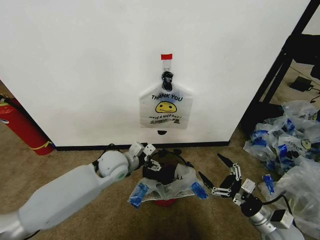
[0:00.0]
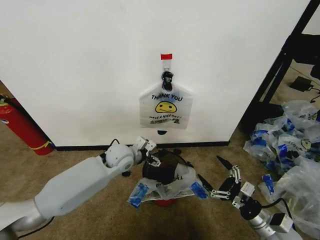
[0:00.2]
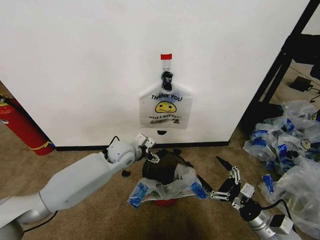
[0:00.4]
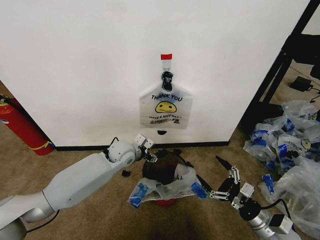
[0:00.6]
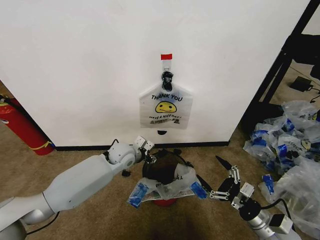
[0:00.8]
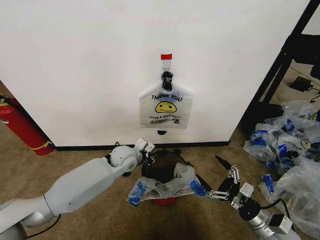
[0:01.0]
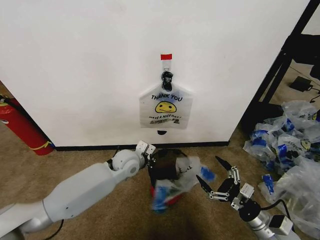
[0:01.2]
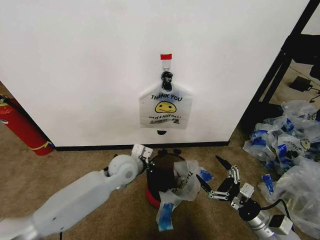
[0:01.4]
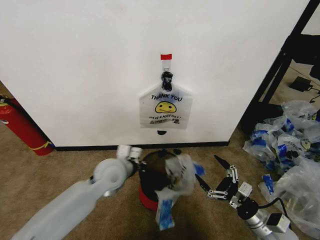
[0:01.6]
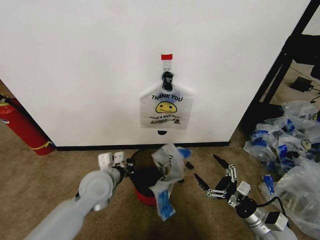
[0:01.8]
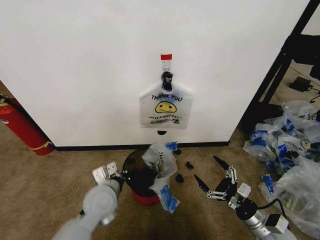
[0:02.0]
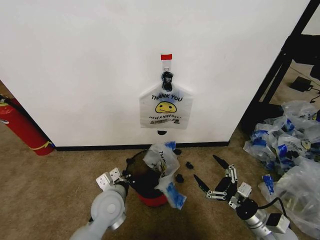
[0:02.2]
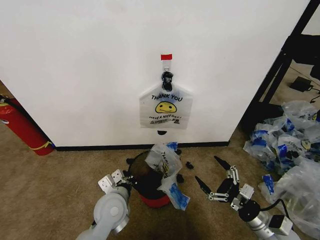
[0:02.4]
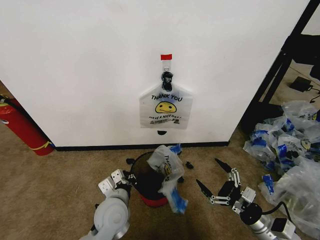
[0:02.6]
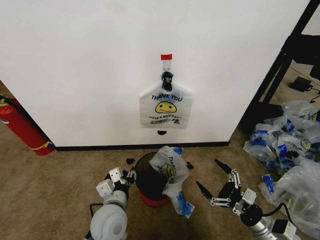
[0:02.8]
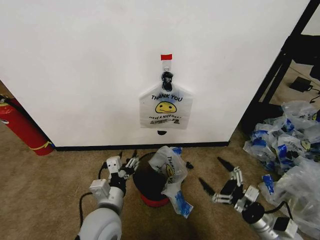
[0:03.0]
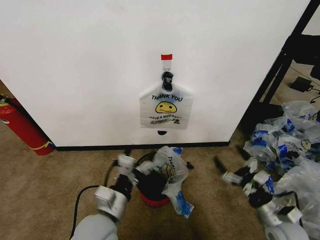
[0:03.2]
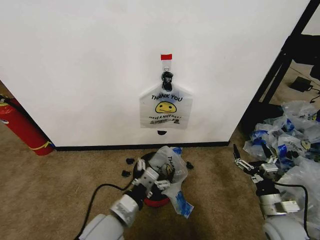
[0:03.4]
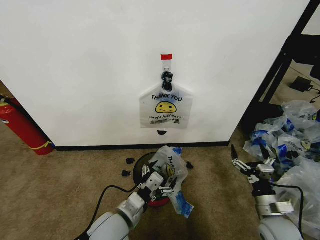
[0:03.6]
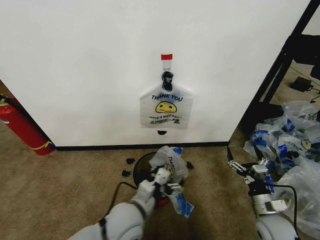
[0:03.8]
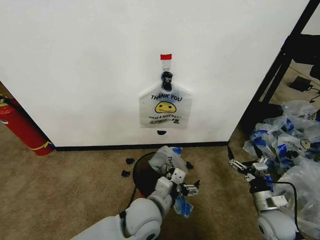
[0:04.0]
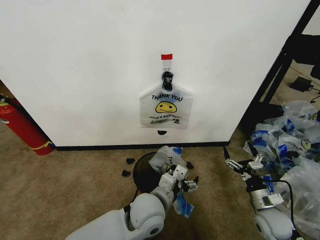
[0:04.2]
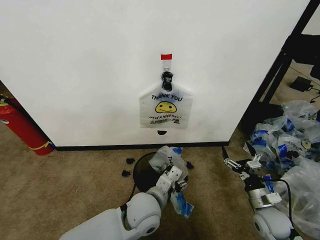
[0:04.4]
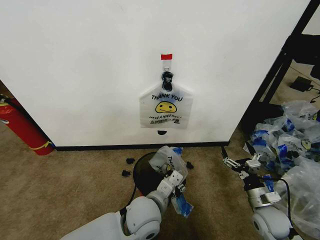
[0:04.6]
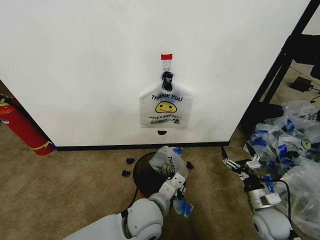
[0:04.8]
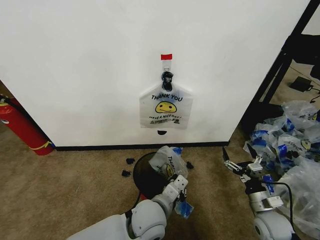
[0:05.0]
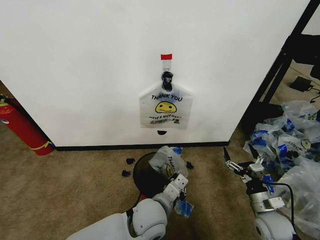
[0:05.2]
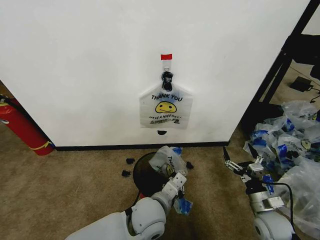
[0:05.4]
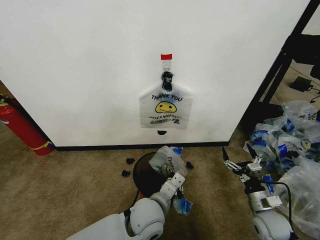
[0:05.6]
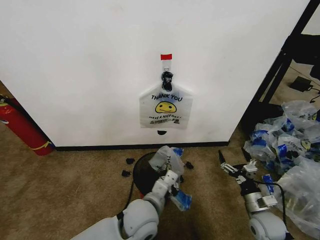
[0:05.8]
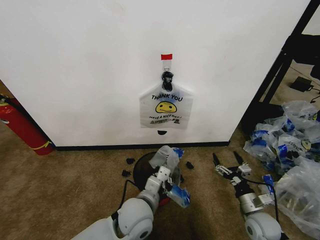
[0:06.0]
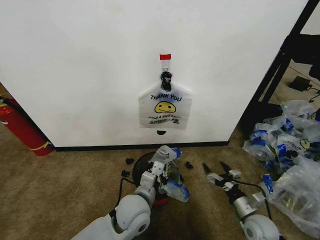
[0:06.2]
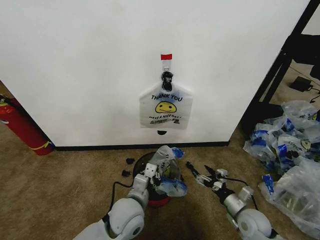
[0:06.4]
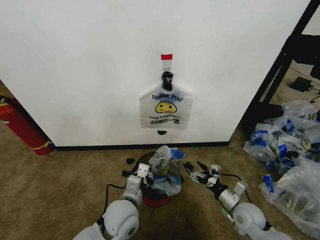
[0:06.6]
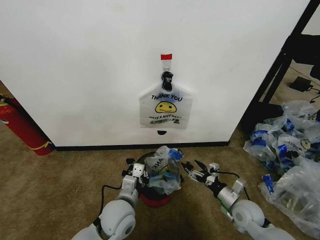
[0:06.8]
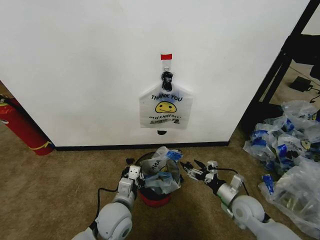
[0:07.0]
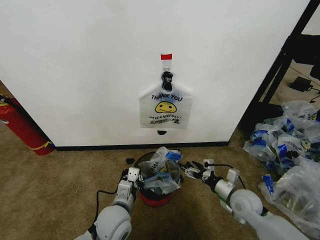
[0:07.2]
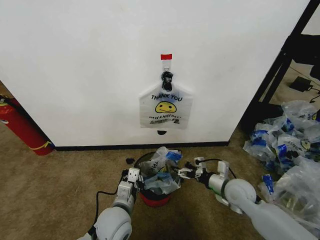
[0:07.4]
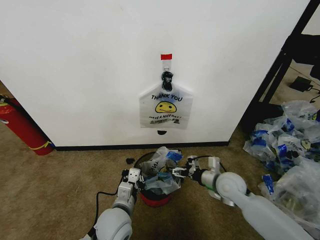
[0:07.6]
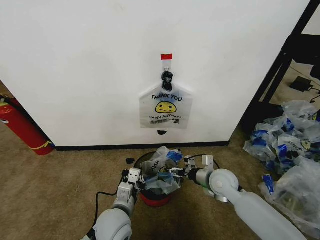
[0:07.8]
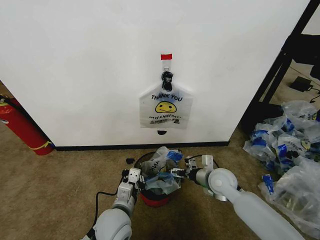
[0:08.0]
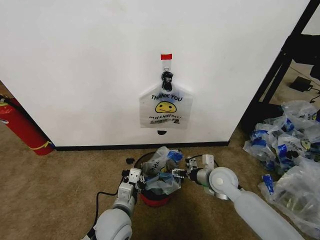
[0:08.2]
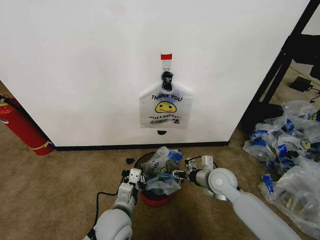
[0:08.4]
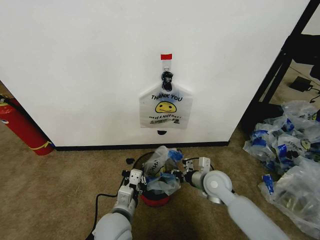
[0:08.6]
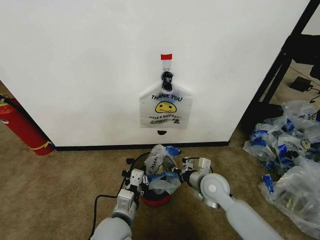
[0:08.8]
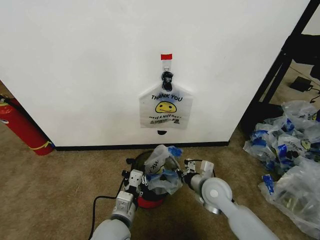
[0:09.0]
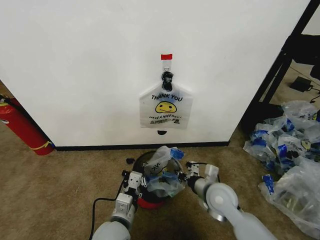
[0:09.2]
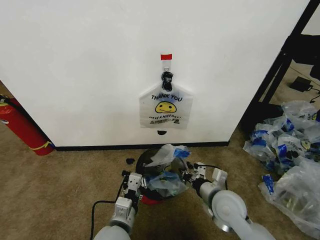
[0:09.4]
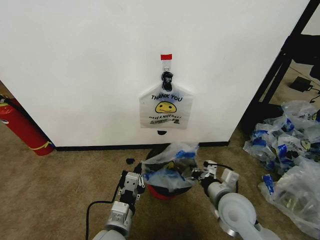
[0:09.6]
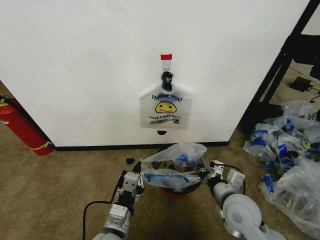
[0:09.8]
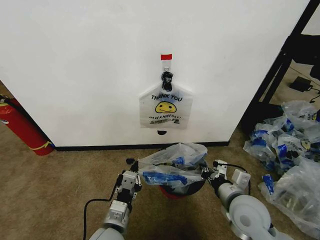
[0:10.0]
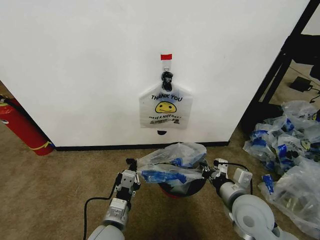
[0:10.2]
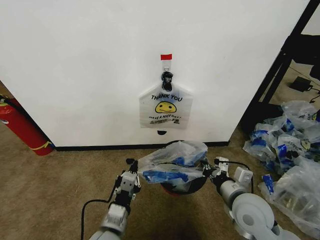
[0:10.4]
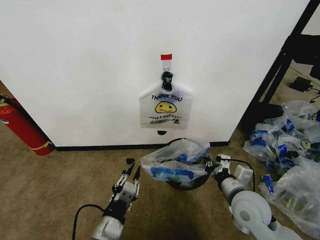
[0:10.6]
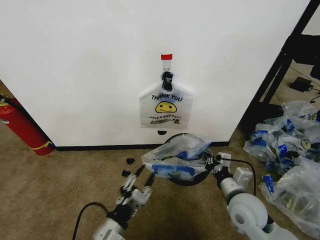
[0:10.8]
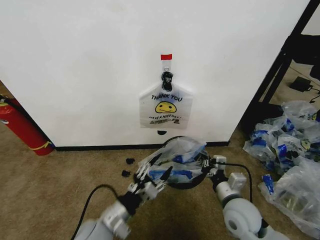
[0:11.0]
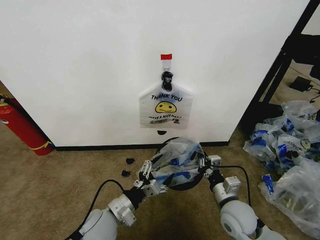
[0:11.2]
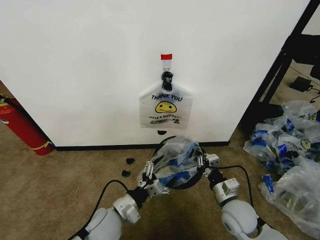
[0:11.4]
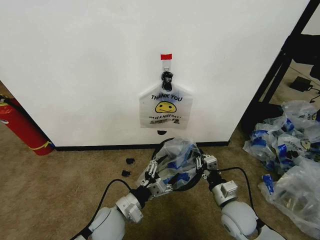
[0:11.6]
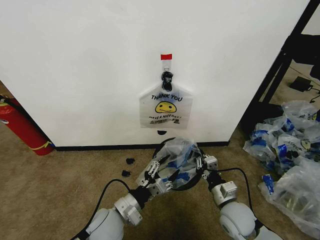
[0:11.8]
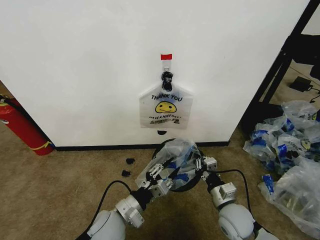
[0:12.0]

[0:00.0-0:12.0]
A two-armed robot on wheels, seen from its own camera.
Task of the whole recording: Pick up the garbage bag from the wall and place it over the trash bin.
0.0 to 1.6 s: The left gripper reaches approximately 5 cm forward, then returns, and closes its fingers.
1.6 to 3.0 s: The left gripper shifts about 15 cm backward, and opens.
3.0 to 4.4 s: The right gripper goes some 5 cm forward, while the left gripper travels to the right by about 10 cm.
4.4 to 6.0 s: The left gripper closes its fingers.
6.0 to 7.6 s: The right gripper shifts roughly 15 cm forward, to the left and upward. Meanwhile the left gripper goes some 5 cm to the left.
7.6 to 9.0 s: The right gripper moves to the left, roughly 5 cm, and closes its fingers.
9.0 to 10.4 s: The right gripper shifts about 10 cm backward, upward and to the right.
10.4 to 12.0 s: The right gripper shifts about 10 cm downward. Meanwhile the left gripper is displaced forward by about 5 cm, and opens its fingers.

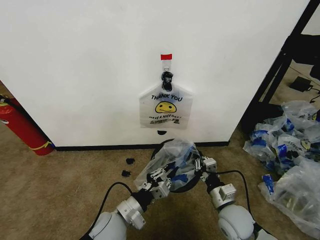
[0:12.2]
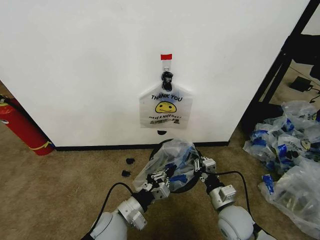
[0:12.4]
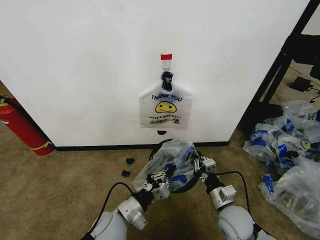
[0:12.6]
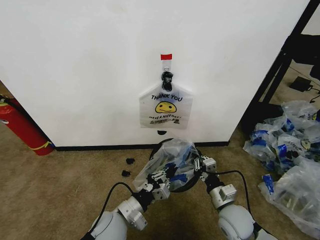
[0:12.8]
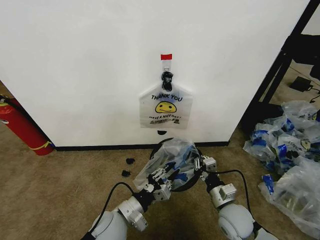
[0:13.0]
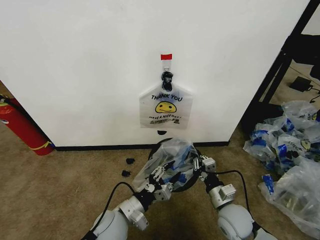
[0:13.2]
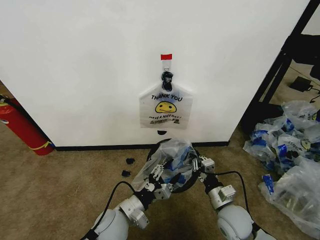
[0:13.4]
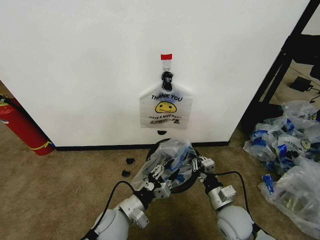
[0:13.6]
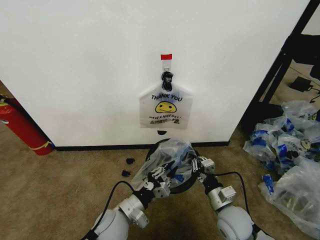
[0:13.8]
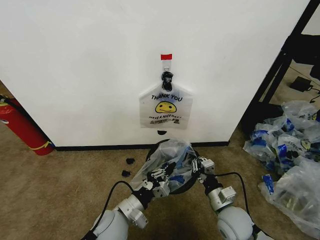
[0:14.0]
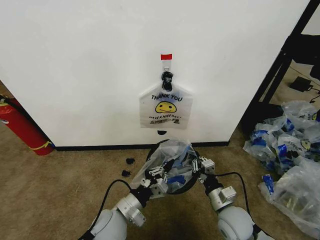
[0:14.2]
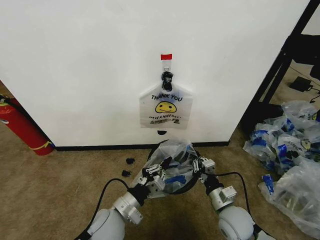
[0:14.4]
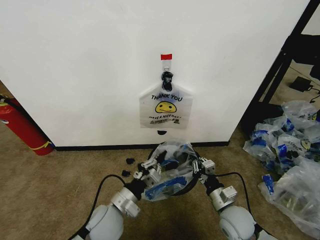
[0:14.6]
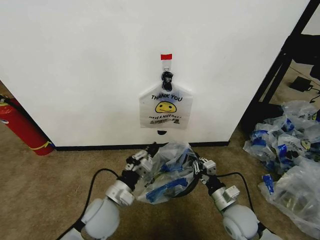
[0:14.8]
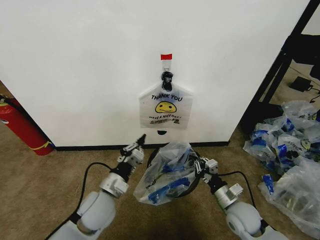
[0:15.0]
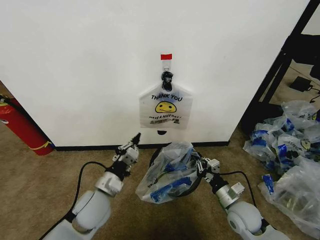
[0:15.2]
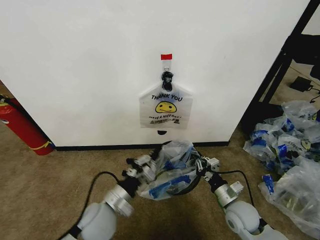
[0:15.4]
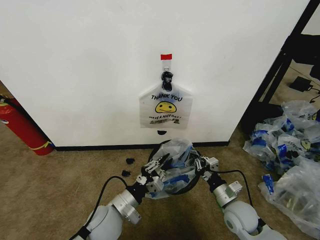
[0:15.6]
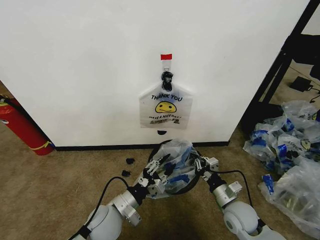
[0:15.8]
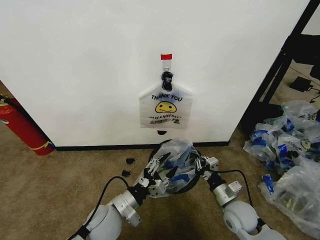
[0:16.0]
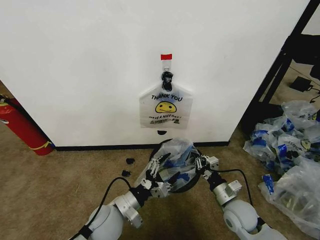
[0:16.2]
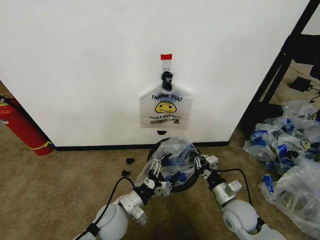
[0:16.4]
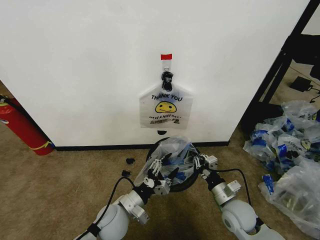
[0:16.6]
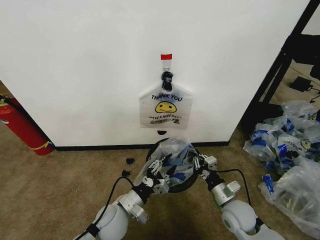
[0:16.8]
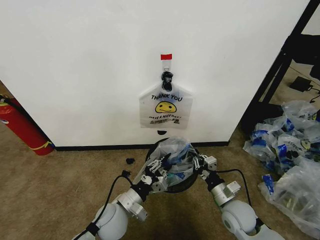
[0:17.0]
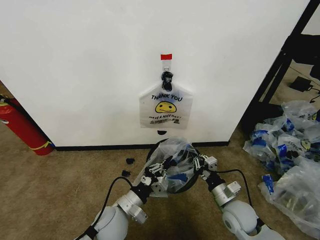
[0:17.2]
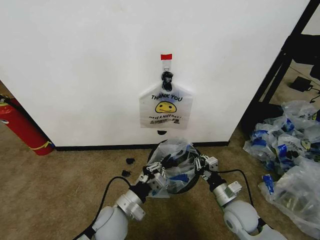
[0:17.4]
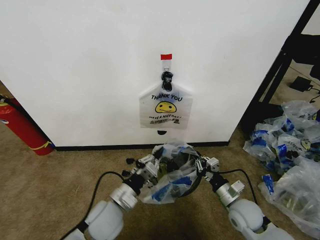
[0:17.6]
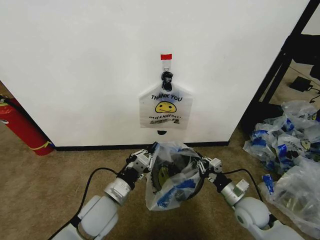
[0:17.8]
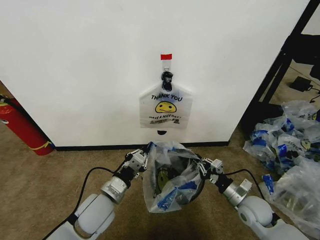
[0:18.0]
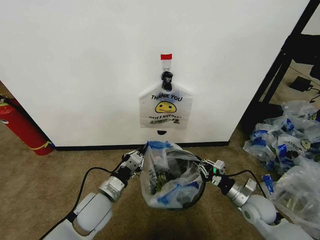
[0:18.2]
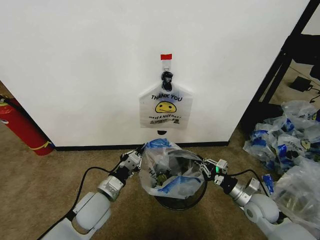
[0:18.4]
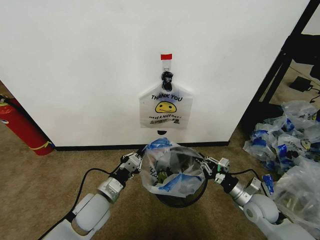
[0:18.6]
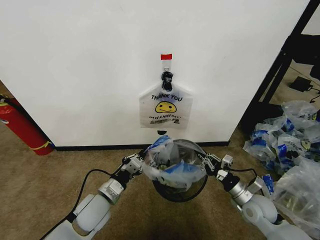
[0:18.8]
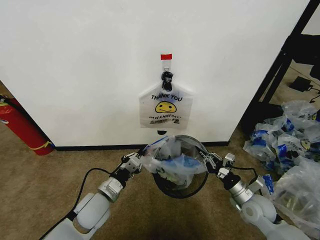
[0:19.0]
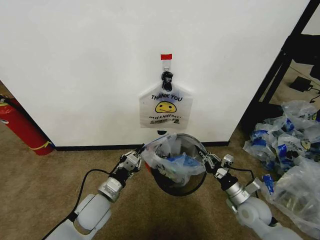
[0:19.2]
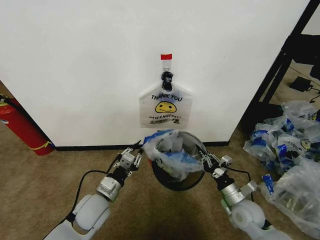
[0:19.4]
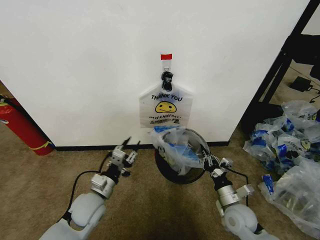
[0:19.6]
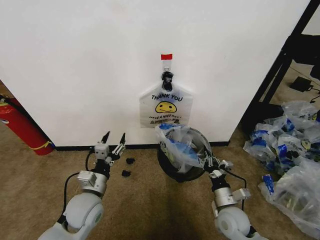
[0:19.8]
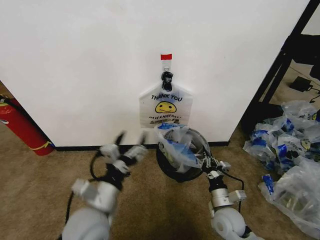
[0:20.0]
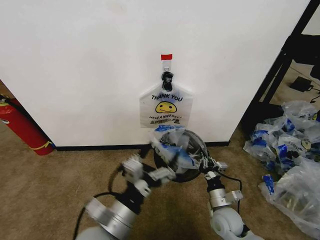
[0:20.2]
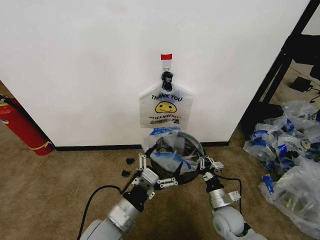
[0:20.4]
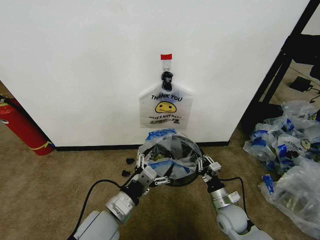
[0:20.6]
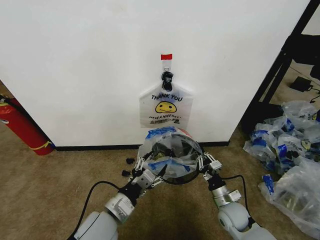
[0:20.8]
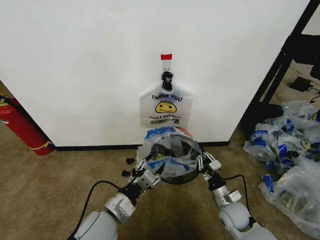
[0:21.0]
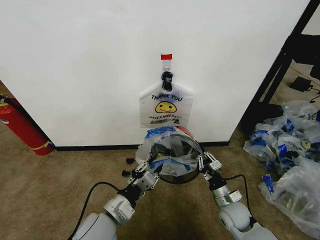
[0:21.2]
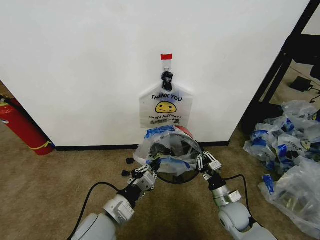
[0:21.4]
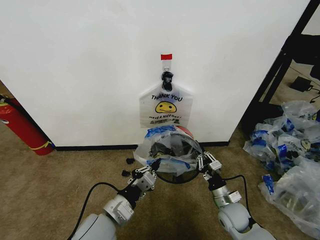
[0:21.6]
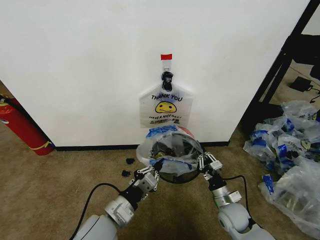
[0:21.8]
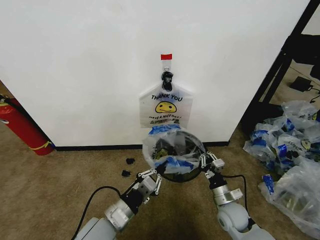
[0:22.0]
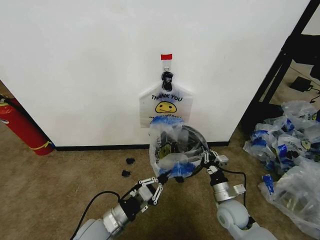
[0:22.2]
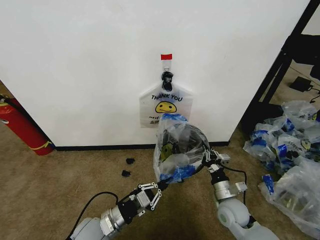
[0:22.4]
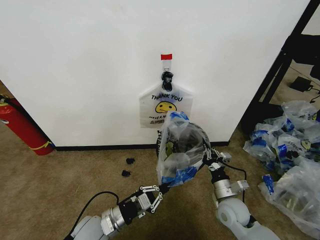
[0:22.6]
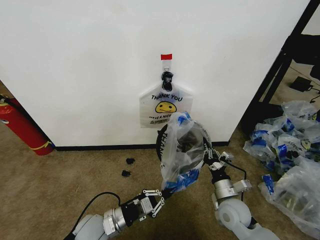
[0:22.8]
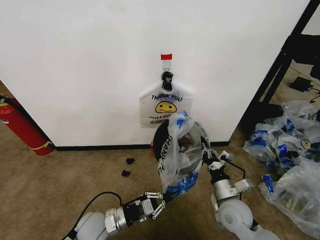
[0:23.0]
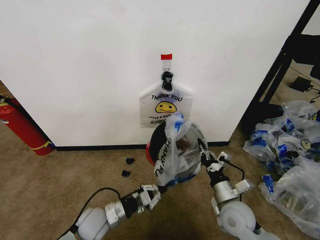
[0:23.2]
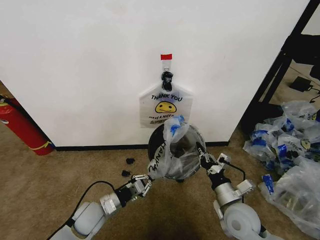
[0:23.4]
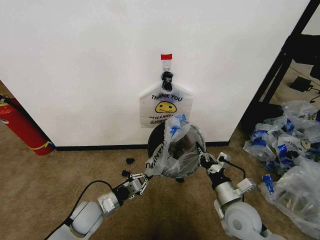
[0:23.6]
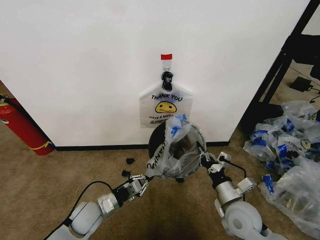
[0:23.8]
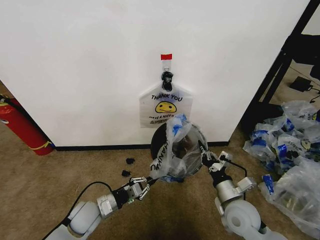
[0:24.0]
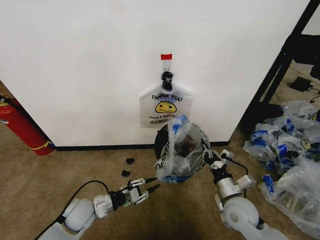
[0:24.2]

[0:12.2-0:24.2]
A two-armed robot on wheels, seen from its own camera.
Task of the whole recording: Pick up the garbage bag from the wall and place it over the trash bin.
12.2 to 13.8 s: The left gripper opens, then closes once more.
13.8 to 15.2 s: The left gripper moves to the left, some 5 cm. Meanwhile the right gripper ends up about 5 cm from where it was.
15.2 to 16.6 s: The left gripper goes about 5 cm downward, and opens its fingers.
16.6 to 18.2 s: The left gripper changes place by about 5 cm, and closes, while the right gripper is displaced to the right by roughly 10 cm.
18.2 to 19.8 s: The left gripper opens, while the right gripper is displaced to the left by some 10 cm.
19.8 to 21.2 s: The left gripper heads backward and to the right, covering roughly 10 cm, and closes.
21.2 to 22.6 s: The left gripper goes about 5 cm downward.
22.6 to 24.2 s: The left gripper is displaced to the left and forward by roughly 10 cm.
